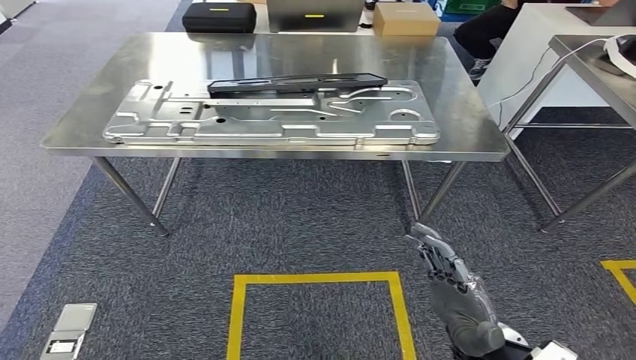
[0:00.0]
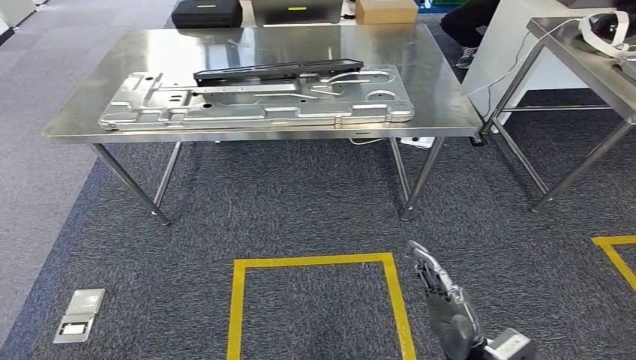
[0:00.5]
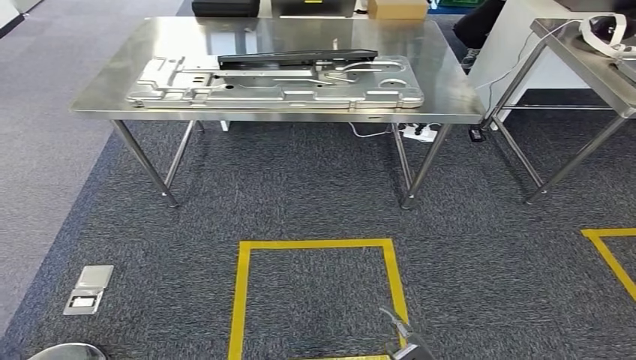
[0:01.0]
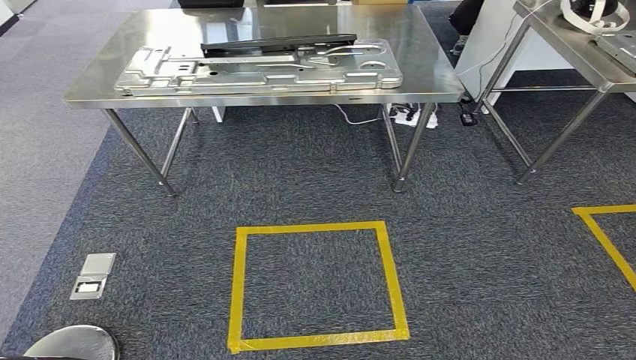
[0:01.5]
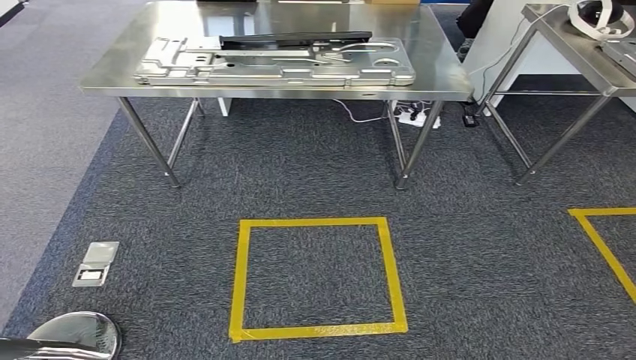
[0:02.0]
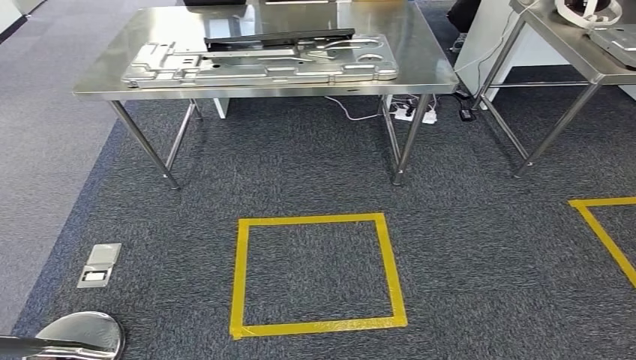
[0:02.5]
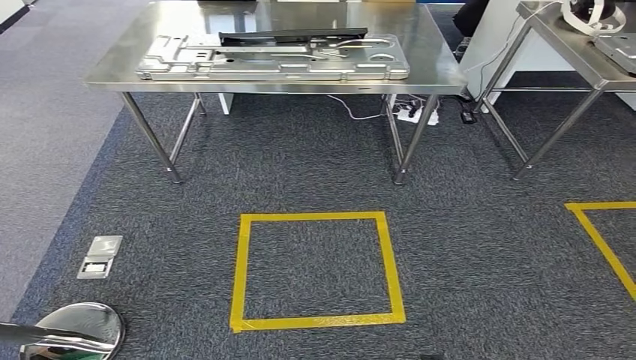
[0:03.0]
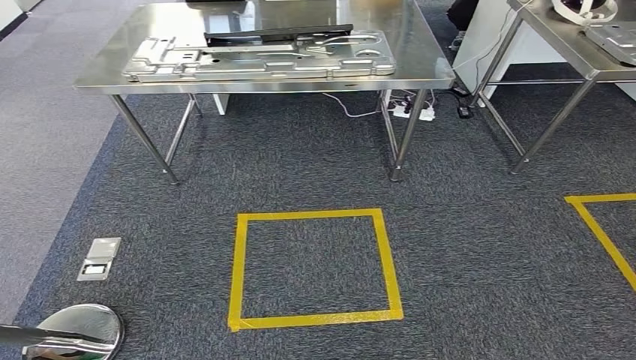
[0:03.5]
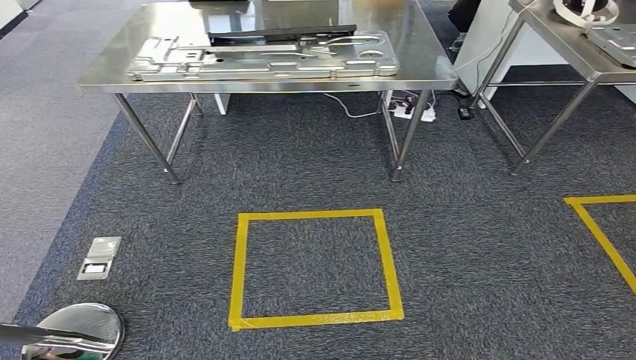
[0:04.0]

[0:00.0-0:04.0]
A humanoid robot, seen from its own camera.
Step, 0:00.0 to 0:04.0: Move to the initial position at the workbench.
